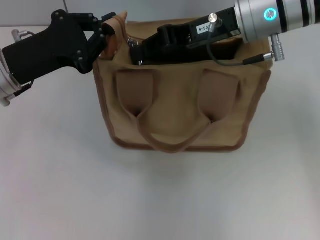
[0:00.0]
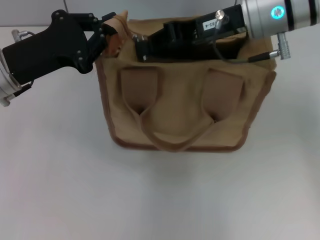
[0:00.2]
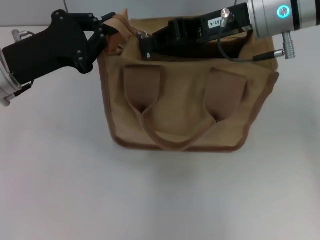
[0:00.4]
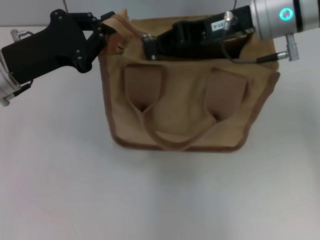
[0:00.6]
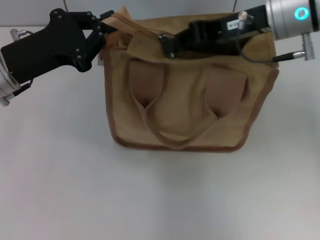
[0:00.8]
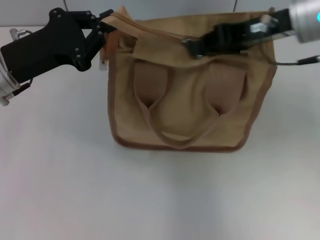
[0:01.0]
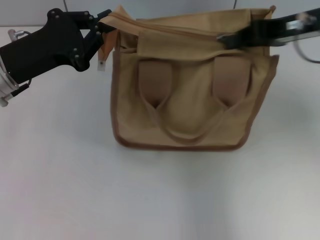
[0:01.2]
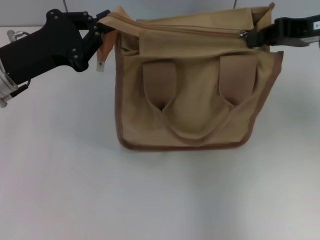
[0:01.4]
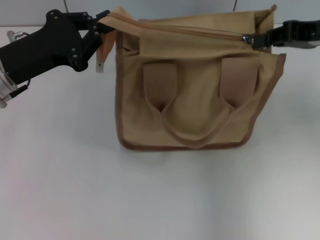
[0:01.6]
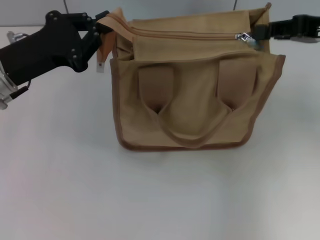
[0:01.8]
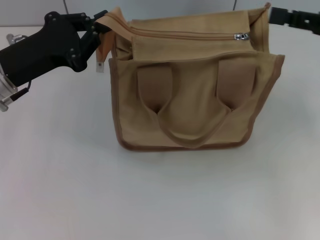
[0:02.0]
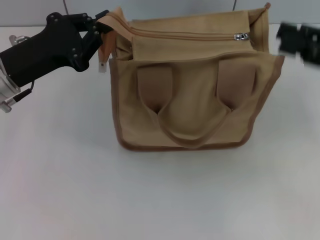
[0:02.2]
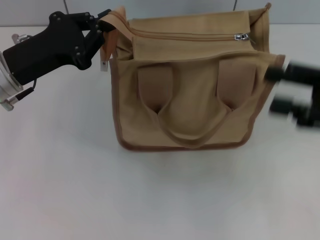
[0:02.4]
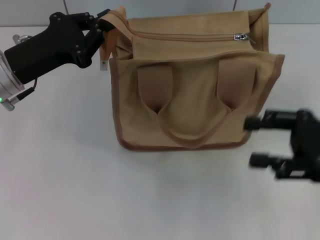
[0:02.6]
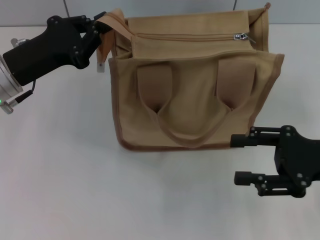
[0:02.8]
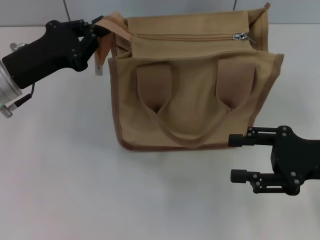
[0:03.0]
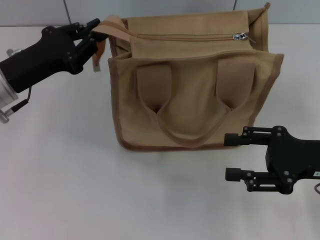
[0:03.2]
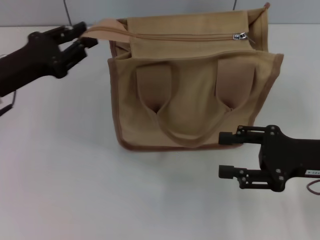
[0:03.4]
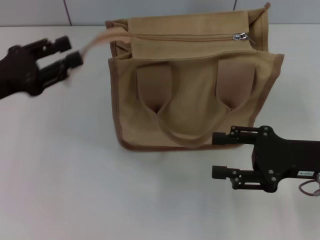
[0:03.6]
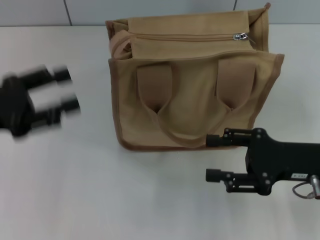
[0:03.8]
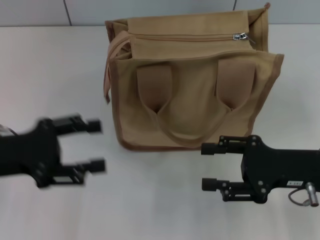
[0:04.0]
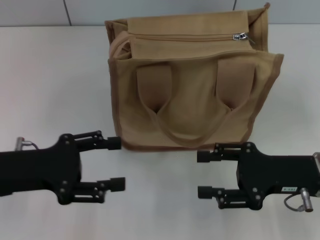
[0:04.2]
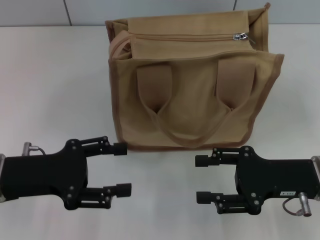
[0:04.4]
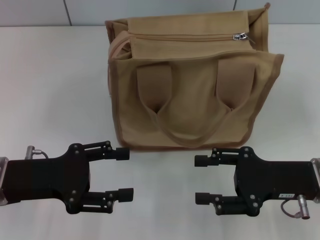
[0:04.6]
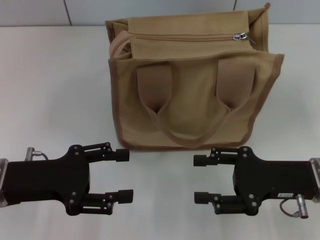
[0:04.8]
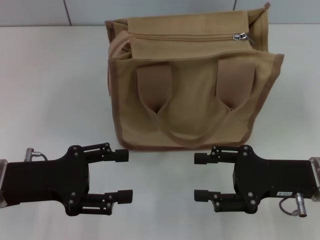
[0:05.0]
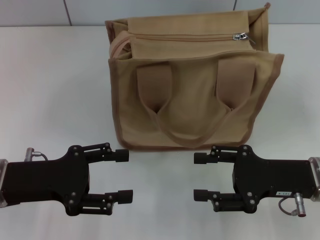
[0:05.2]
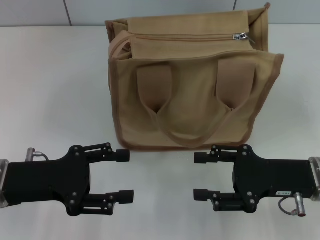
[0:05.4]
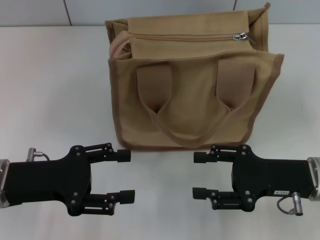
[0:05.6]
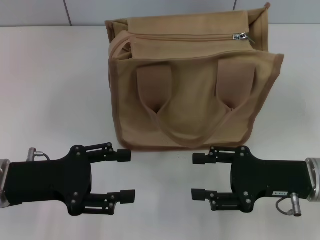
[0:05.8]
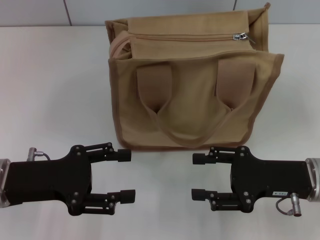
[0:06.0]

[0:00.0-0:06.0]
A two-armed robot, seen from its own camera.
Step, 0:02.0 to 0:03.6: Grab the zipper with your left hand.
0:00.0 to 0:01.6: The right gripper goes roughly 15 cm to the right.
0:01.6 to 0:03.0: The right gripper goes about 15 cm downward and backward, and opens its fingers.
0:03.0 to 0:04.4: The left gripper travels backward by some 10 cm, and opens up, while the right gripper changes place by roughly 5 cm.
0:04.4 to 0:06.0: The two grippers keep their place.
